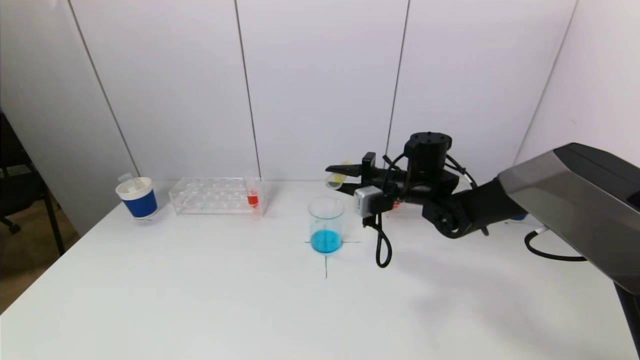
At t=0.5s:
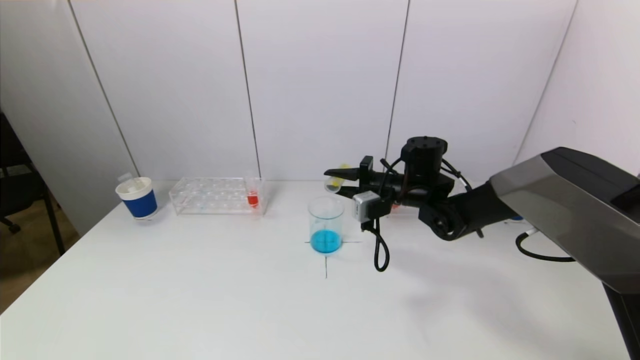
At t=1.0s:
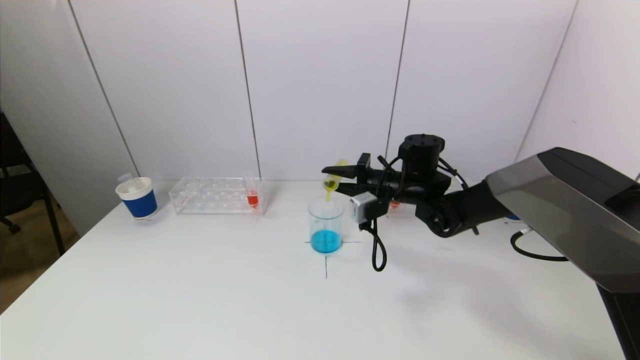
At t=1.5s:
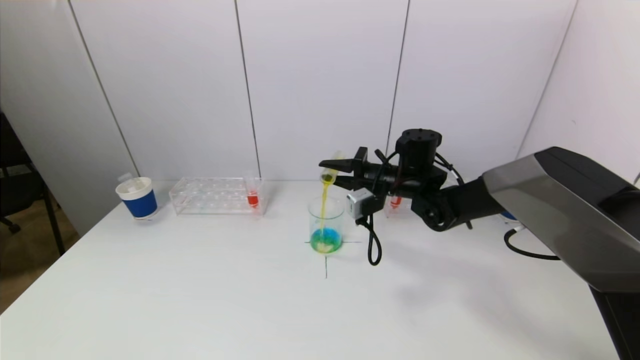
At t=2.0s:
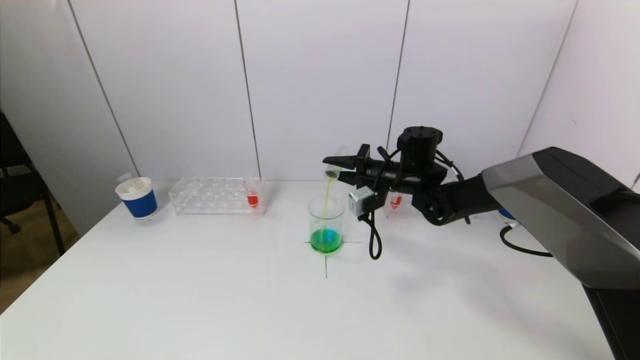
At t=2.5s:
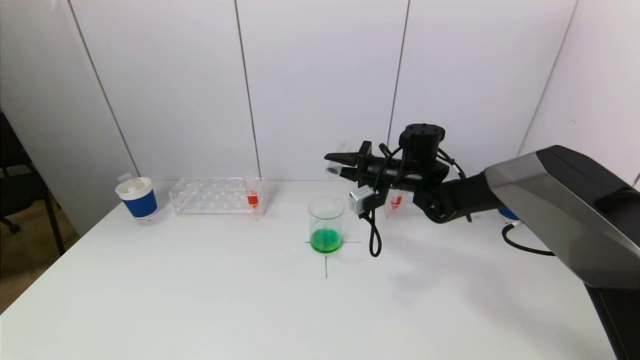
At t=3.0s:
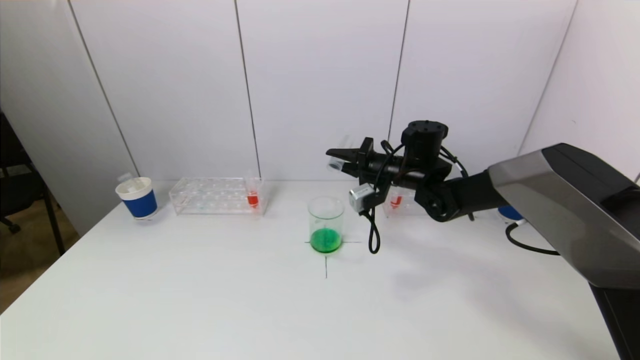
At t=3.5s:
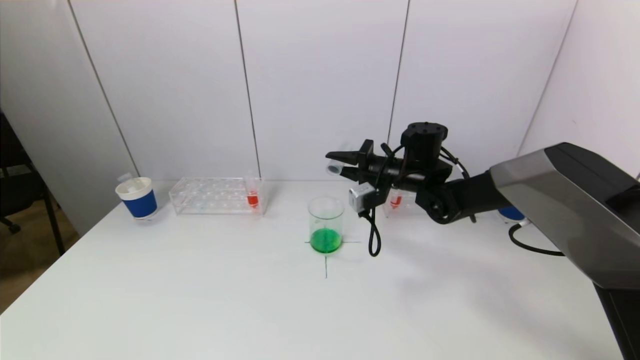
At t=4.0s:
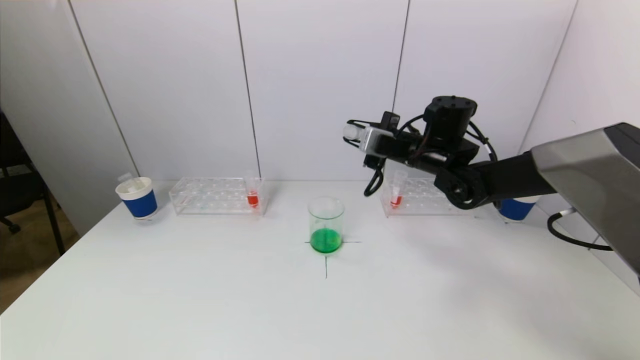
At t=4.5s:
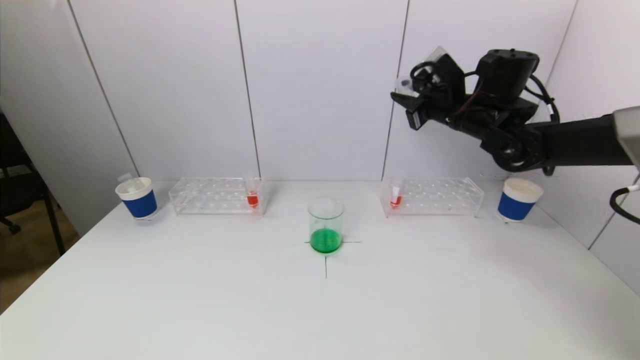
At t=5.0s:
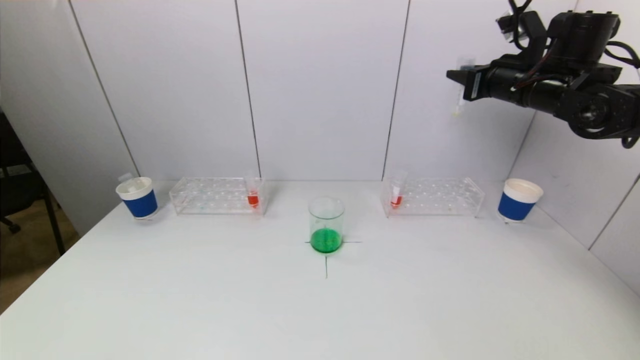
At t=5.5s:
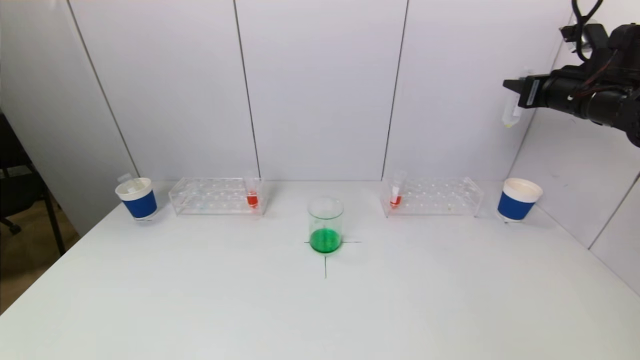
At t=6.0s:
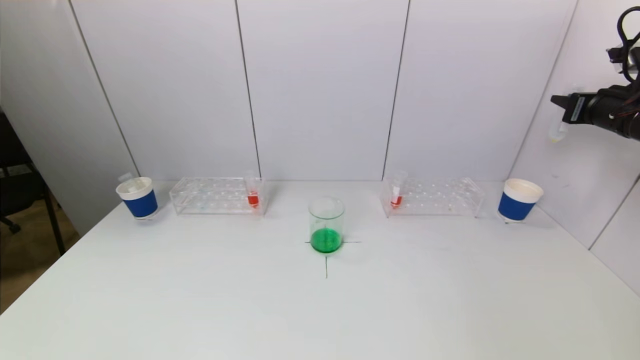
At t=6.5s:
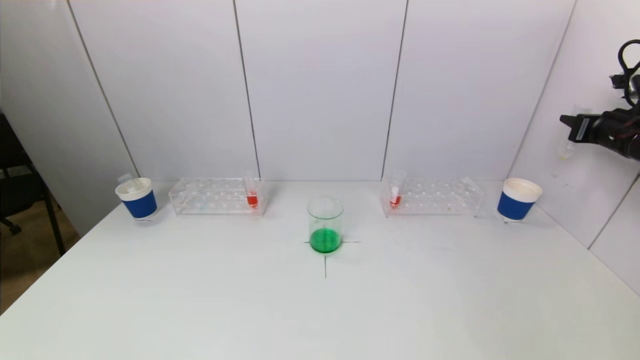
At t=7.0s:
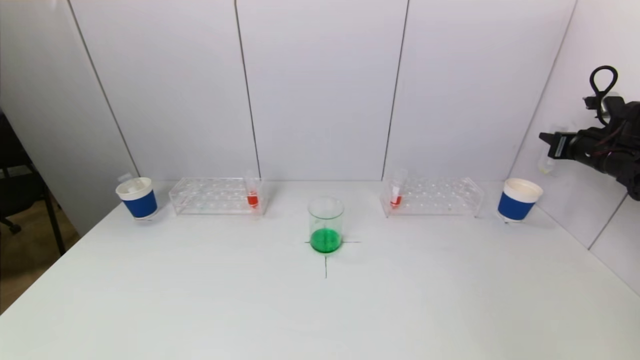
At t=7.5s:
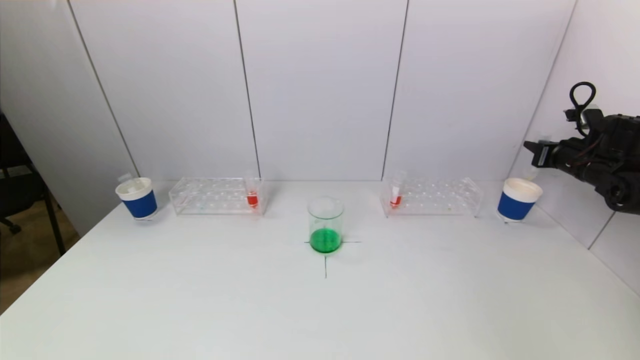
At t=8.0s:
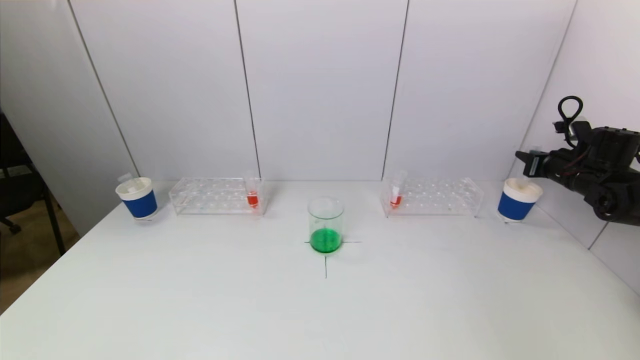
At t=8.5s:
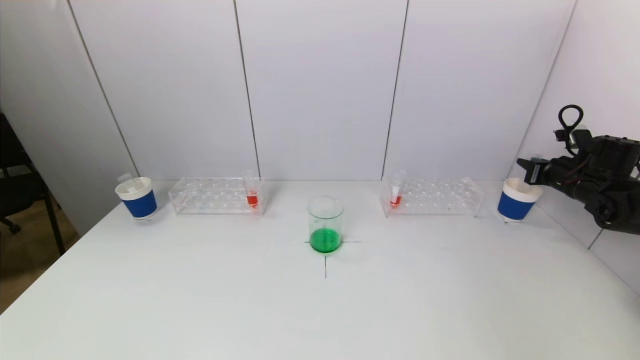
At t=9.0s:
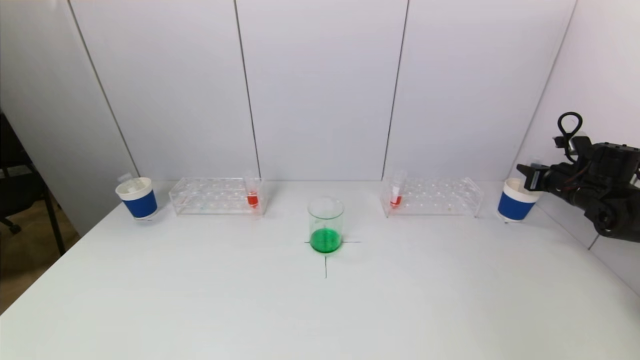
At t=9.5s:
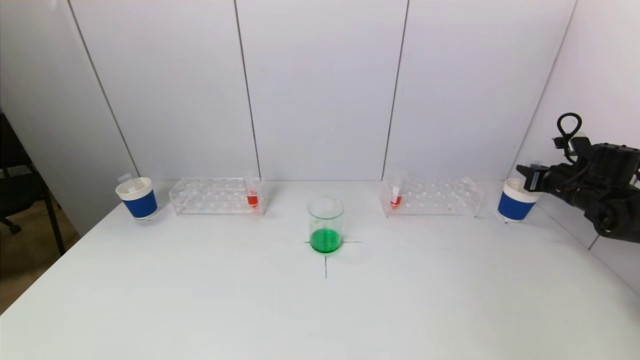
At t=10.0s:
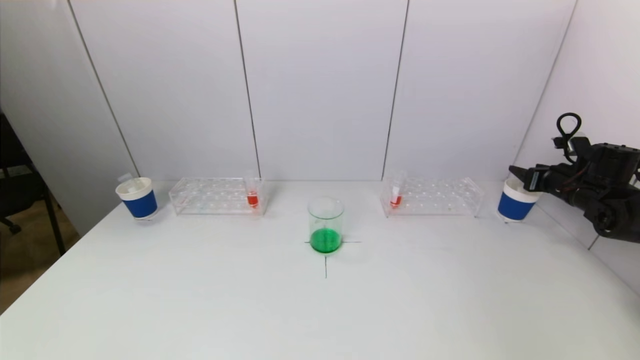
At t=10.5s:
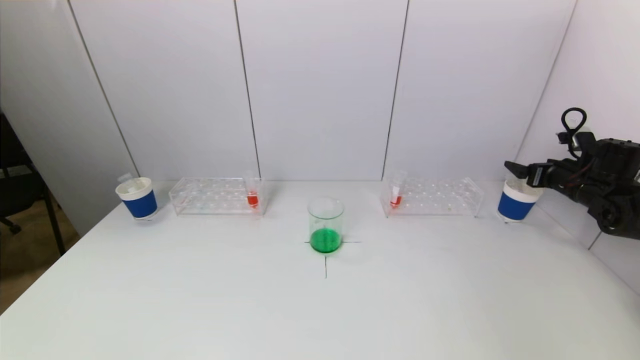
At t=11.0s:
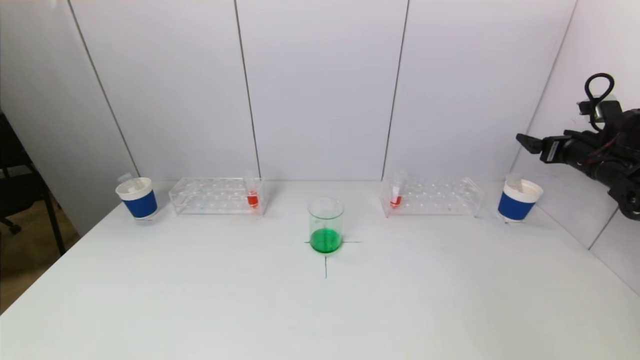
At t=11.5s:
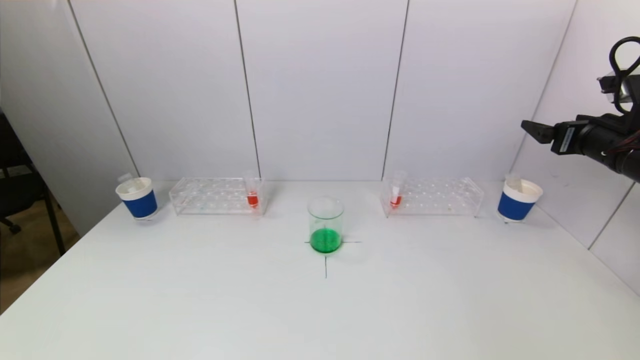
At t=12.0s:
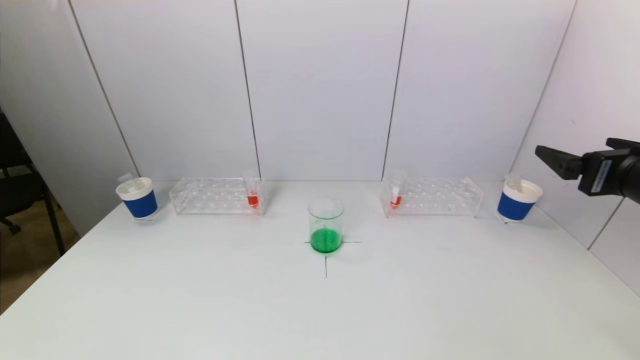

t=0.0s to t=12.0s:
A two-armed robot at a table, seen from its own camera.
Task of the whole recording: pick up a test tube with pigment on left test tube rack and a test tube with pigment on right test tube rack by grippers and pour them into the beaker.
Step, t=0.0s to t=2.5s: Pour the yellow reagent into the graduated cylinder with the right gripper.
Step, t=3.0s to t=10.0s: Place the test tube into the paper cup with the right gripper.
t=0.0s to t=2.0s: The grippers move only a little.
t=2.0s to t=4.0s: The right gripper shifts roughly 5 cm upward.
t=4.0s to t=6.0s: The right gripper is displaced to the right by some 30 cm.
t=6.0s to t=8.0s: The right gripper travels downward by approximately 15 cm.
t=8.0s to t=10.0s: The right gripper opens up.
t=10.0s to t=12.0s: The right gripper goes roughly 30 cm backward, to the left and upward, and opens up.

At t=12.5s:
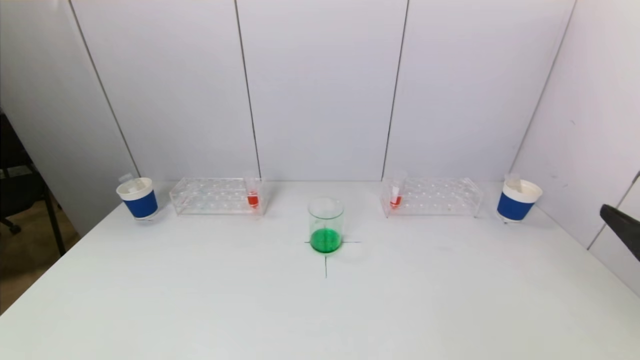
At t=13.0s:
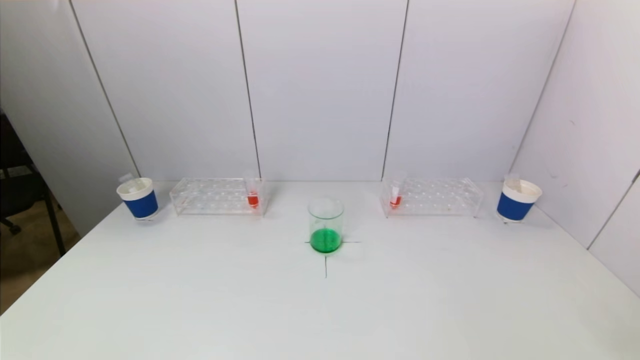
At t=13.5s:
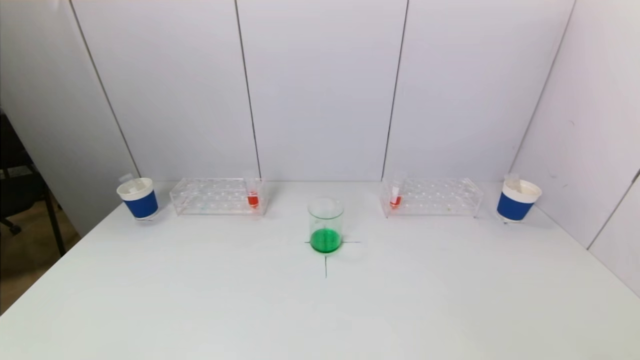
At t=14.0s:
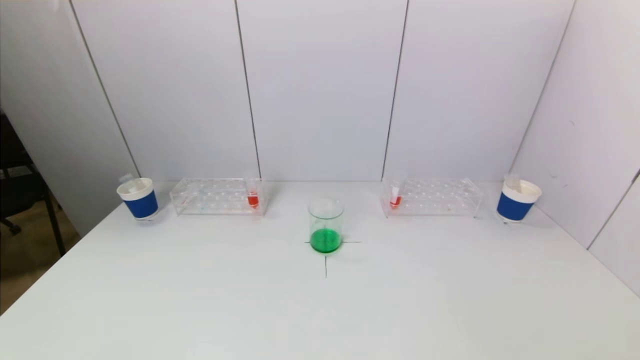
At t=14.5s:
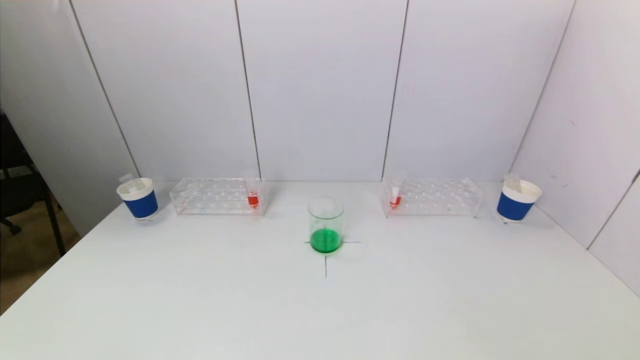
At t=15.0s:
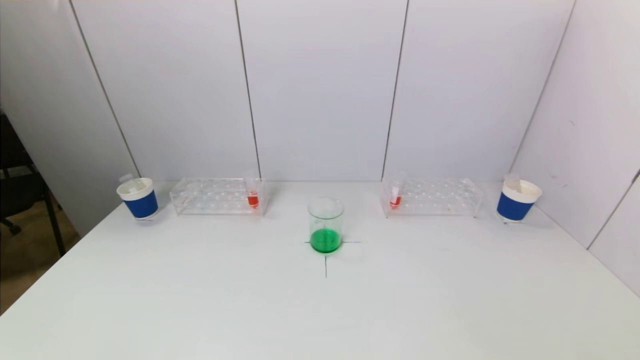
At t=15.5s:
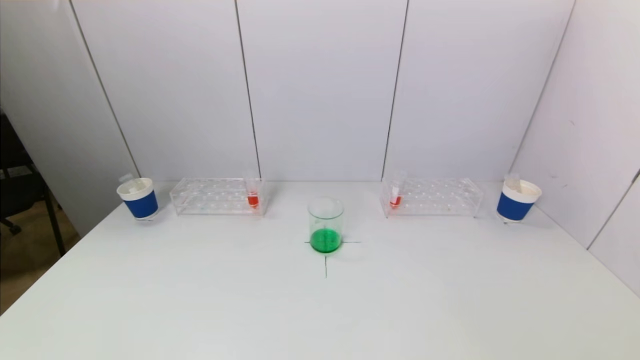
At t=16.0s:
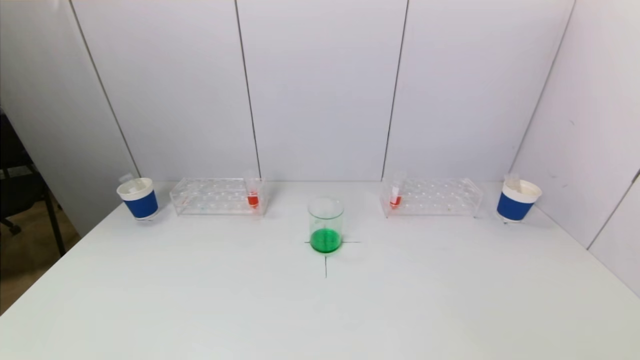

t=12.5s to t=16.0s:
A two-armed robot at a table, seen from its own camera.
Task of the whole recording: pick up a test tube with pigment on left test tube rack and a test tube with pigment on right test tube rack by grippers and pour them into the beaker.
t=12.5s to t=14.5s: The right gripper heads downward and backward, covering roughly 15 cm.
t=14.5s to t=16.0s: Both grippers stay about where they are.
